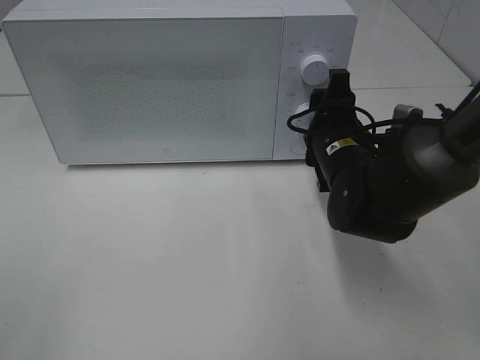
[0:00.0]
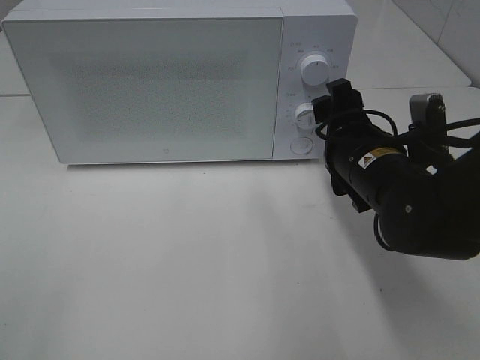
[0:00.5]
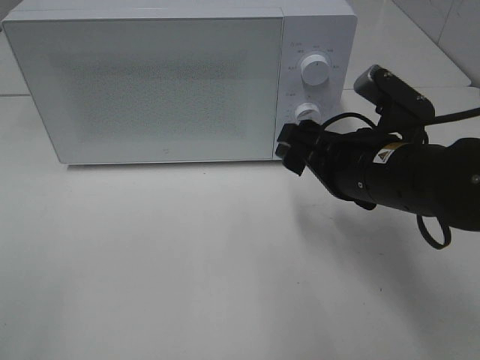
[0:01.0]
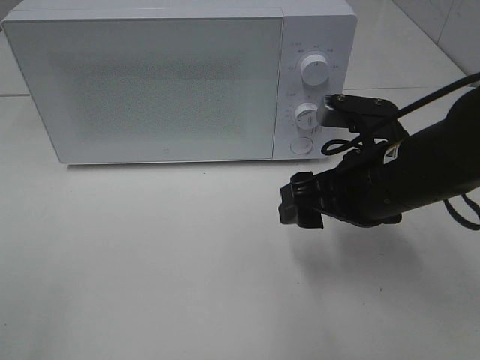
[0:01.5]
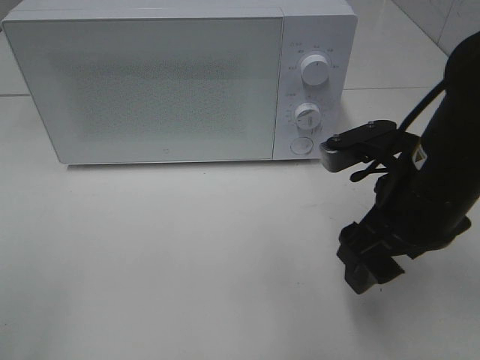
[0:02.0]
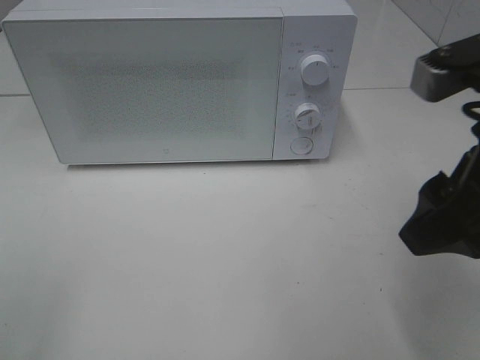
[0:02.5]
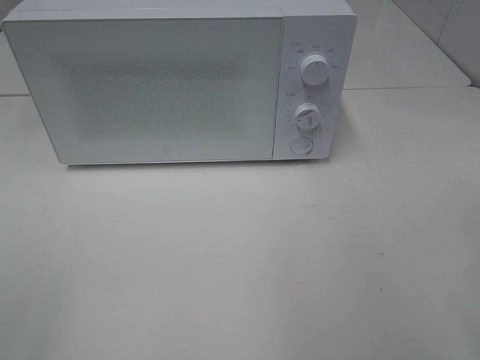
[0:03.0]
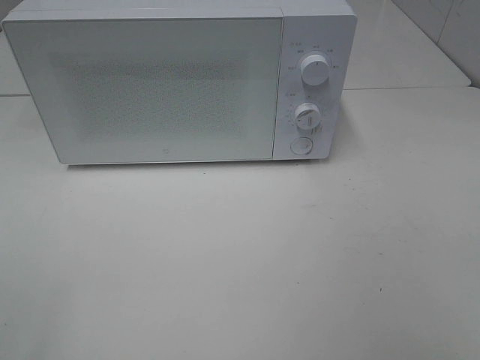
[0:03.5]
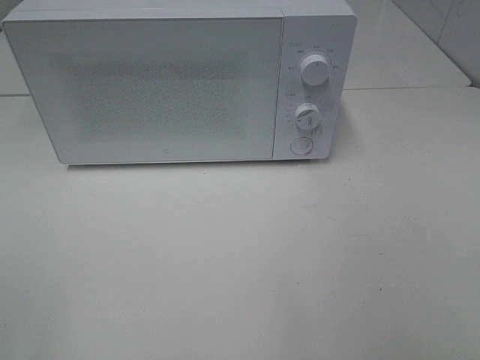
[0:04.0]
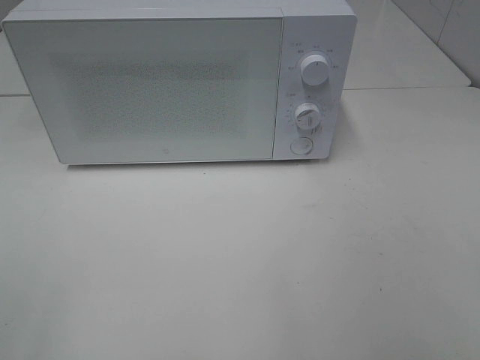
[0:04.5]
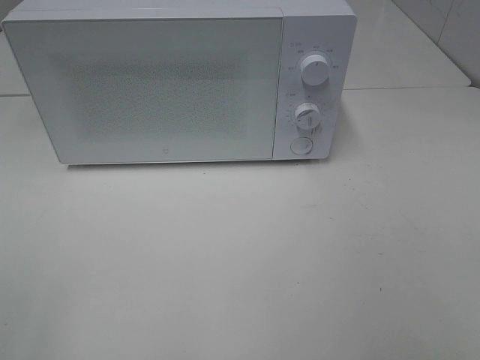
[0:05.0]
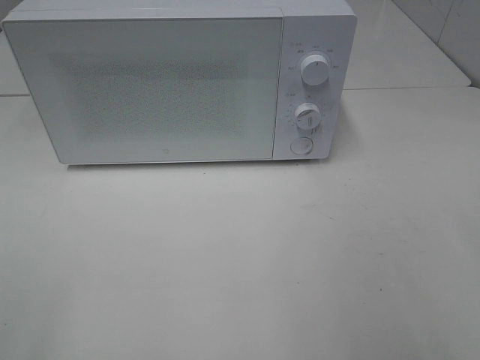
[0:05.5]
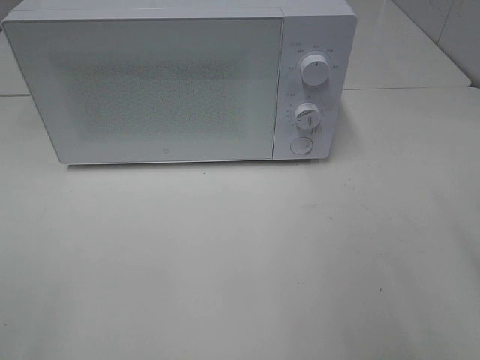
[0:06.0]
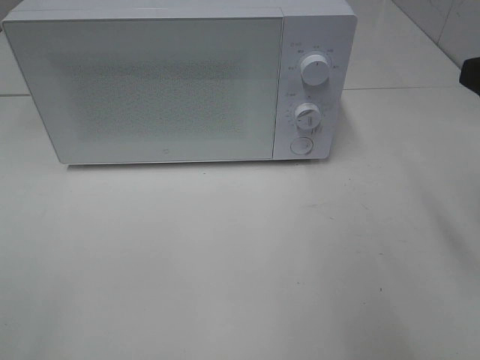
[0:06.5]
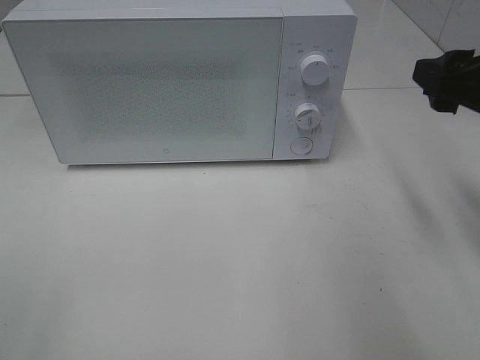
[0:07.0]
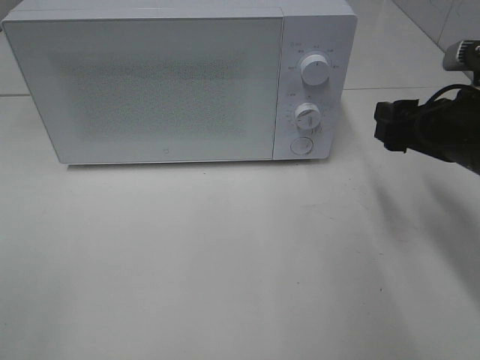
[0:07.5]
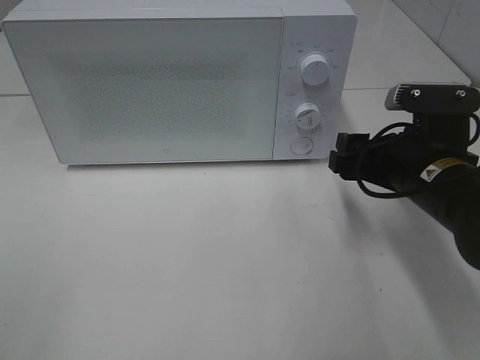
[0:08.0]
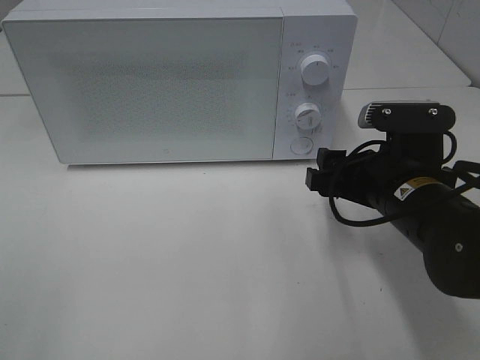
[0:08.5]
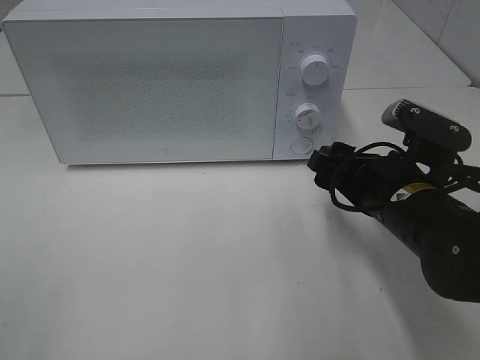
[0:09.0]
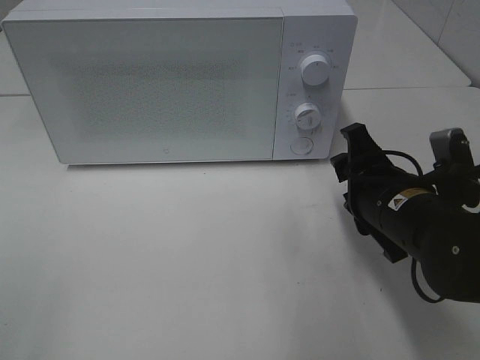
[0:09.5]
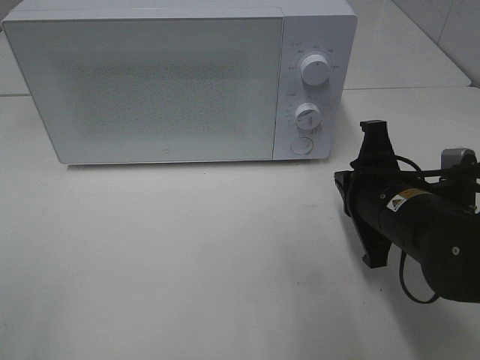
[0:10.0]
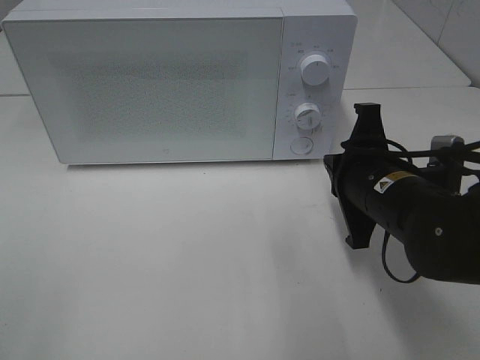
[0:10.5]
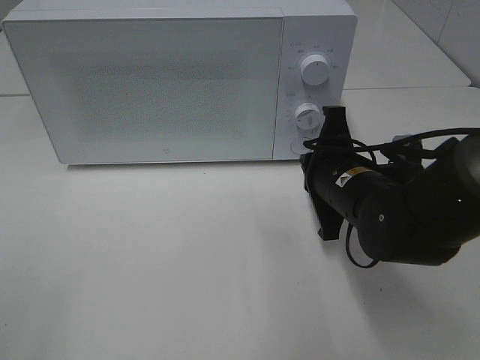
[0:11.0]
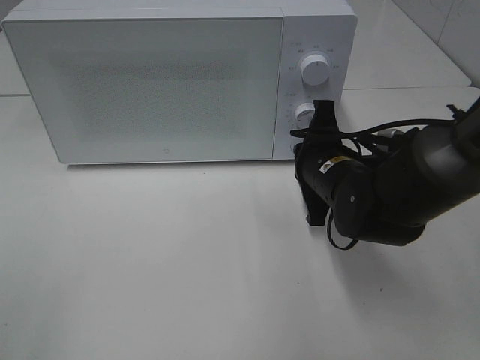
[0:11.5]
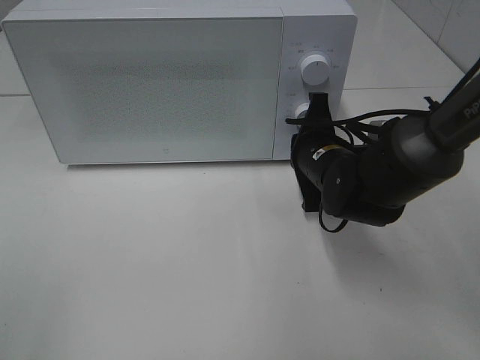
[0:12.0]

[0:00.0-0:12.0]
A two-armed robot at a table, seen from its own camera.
Task of the whole recording: Heat Sandwich.
0:00.0 to 0:02.0: The right gripper is displaced backward and upward by approximately 10 cm.
0:02.0 to 0:04.0: The right gripper shifts roughly 25 cm backward, to the right and upward.
0:06.0 to 0:08.0: The right gripper shifts roughly 20 cm downward, forward and to the left.
0:08.0 to 0:10.0: The right gripper closes up.
0:10.0 to 0:12.0: The right gripper travels forward by about 10 cm.

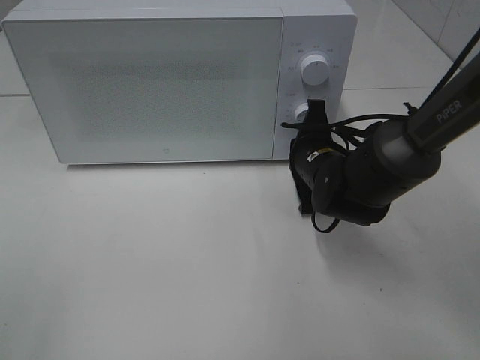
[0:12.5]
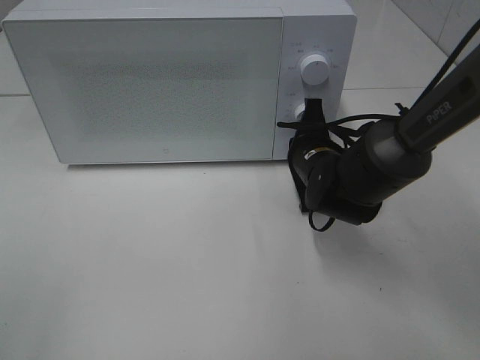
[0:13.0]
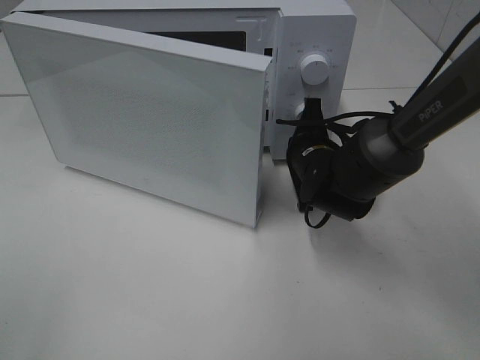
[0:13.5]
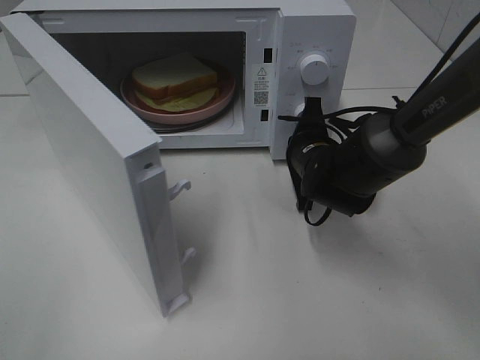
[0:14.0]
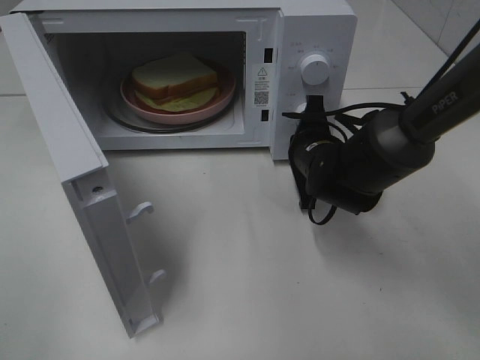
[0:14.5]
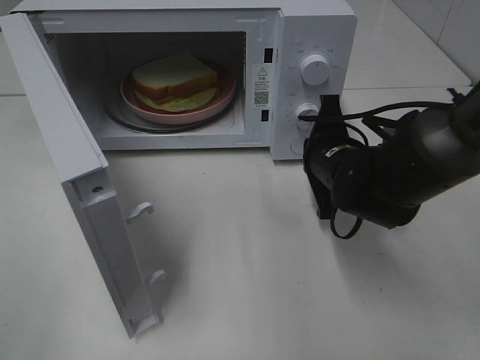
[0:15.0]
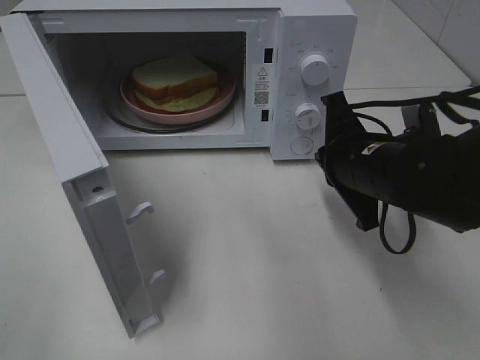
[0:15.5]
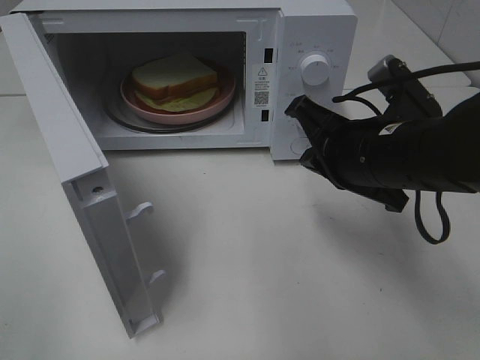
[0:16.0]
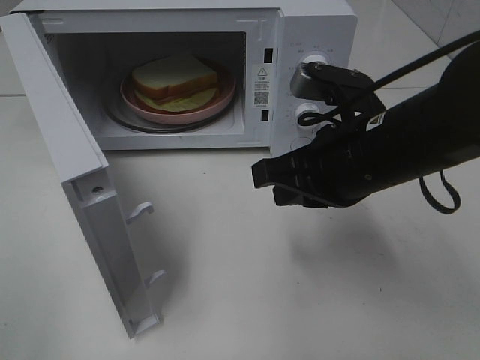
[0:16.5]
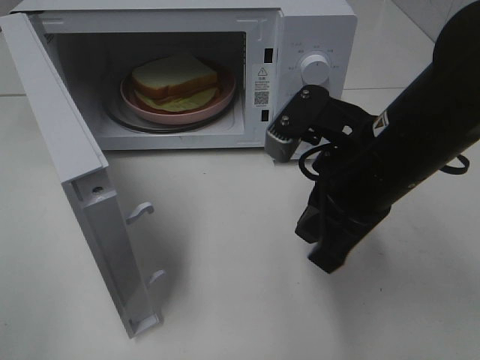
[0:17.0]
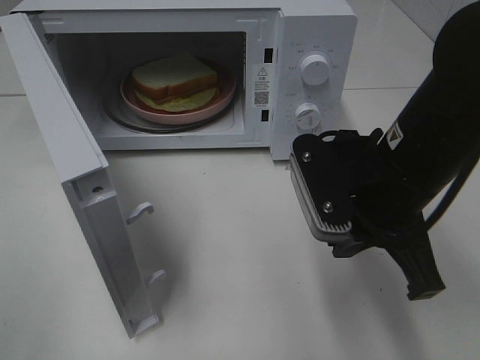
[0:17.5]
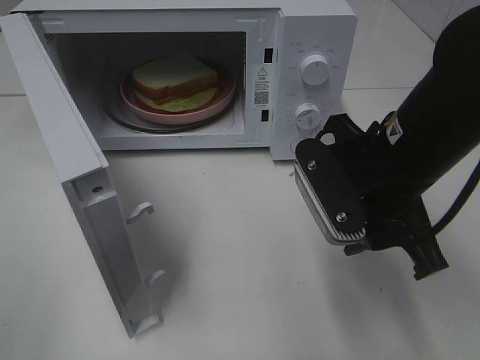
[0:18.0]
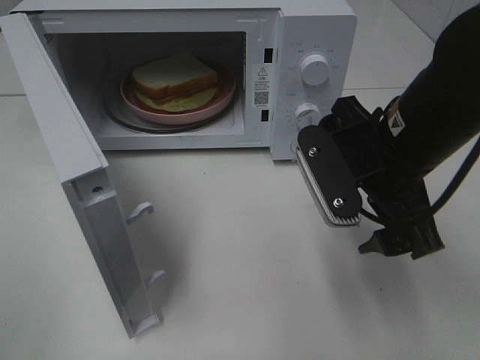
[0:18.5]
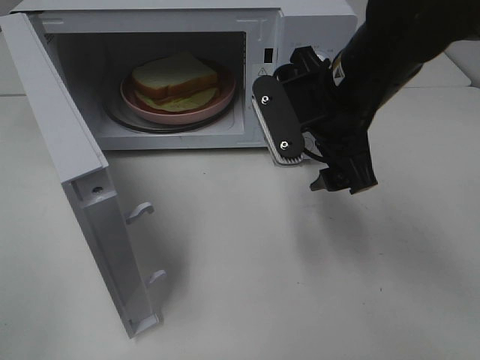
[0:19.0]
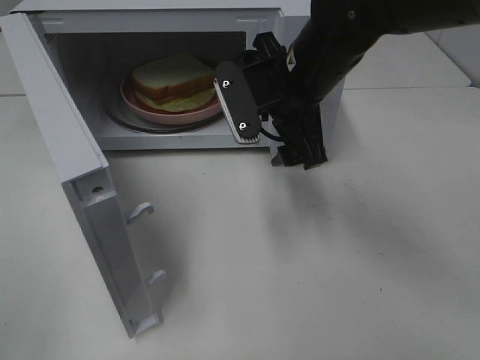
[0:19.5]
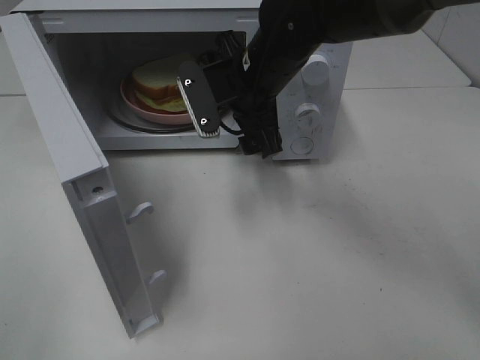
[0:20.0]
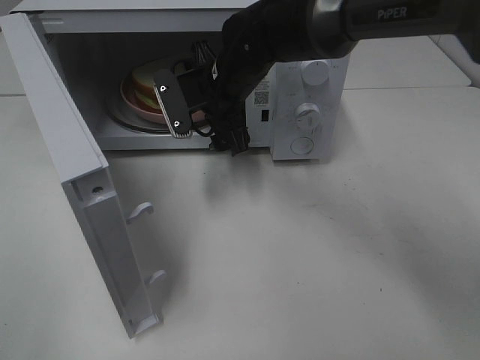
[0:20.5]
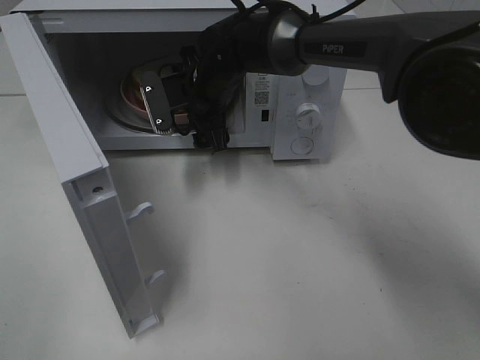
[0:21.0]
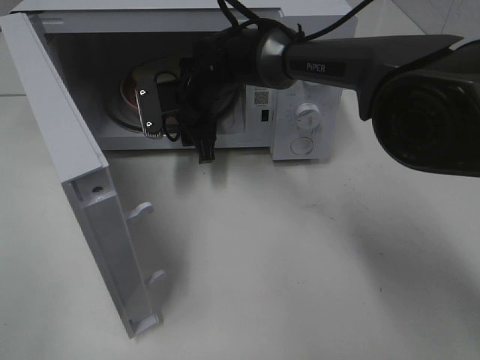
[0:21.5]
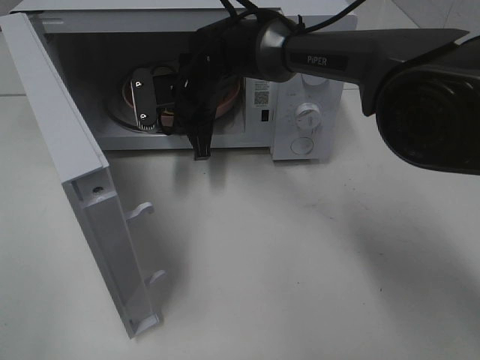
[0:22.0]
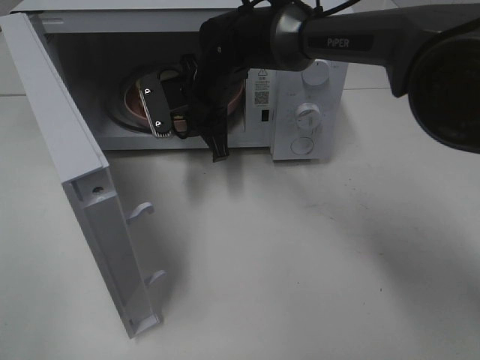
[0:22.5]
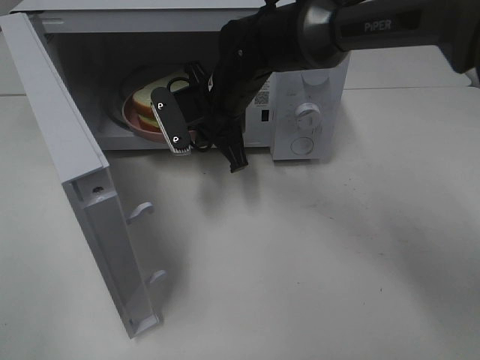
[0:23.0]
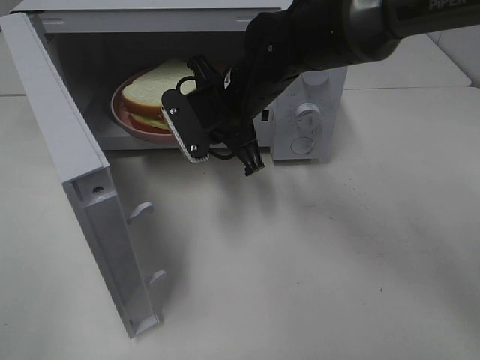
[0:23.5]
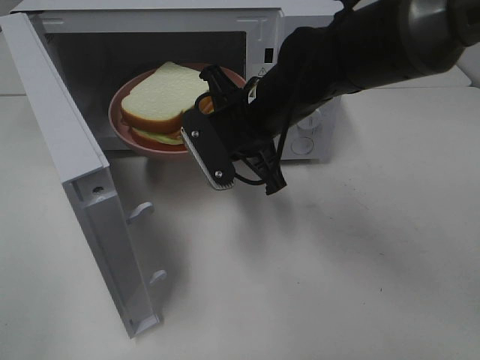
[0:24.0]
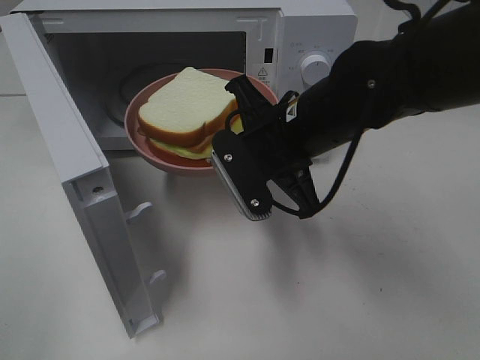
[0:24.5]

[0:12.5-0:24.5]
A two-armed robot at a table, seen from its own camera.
Task of the whole recording: Heat Sandwich.
Step, 0:12.5 to 0:15.0: Right hand: press the switch.
Step, 0:15.5 to 0:22.0: Right hand: grab the plate with the sandwich.
0:14.5 to 0:16.5: The right gripper is displaced backward and upward by roughly 15 cm.
0:16.5 to 0:18.5: The right gripper opens its fingers.
0:18.5 to 0:20.5: The right gripper travels forward and to the left by approximately 20 cm.
0:20.5 to 0:22.5: The right gripper closes.
0:22.5 to 0:24.5: The right gripper shifts approximately 15 cm backward and to the right.

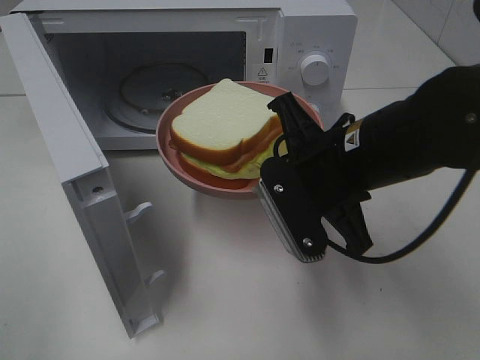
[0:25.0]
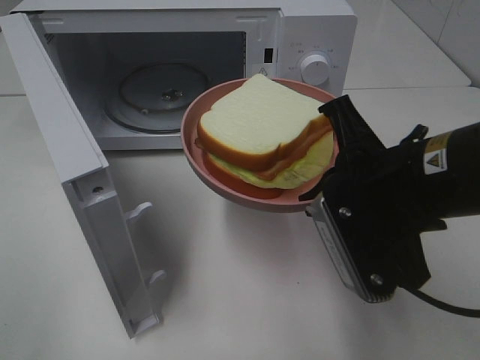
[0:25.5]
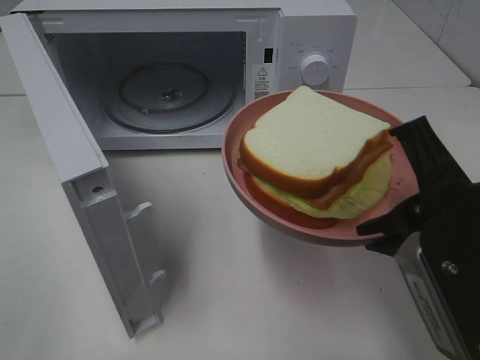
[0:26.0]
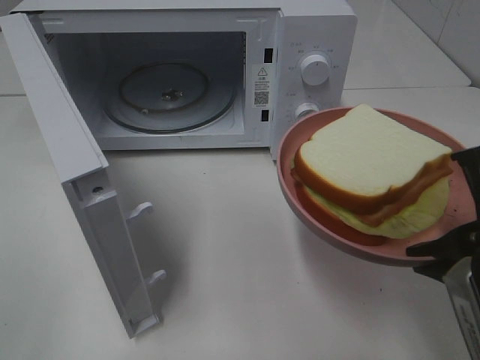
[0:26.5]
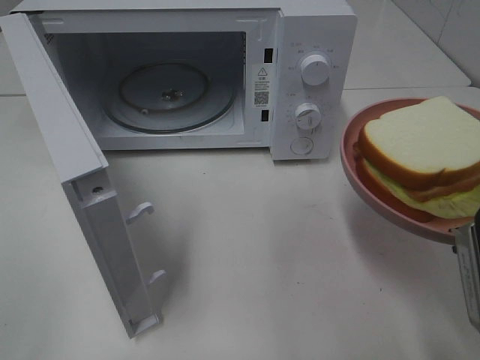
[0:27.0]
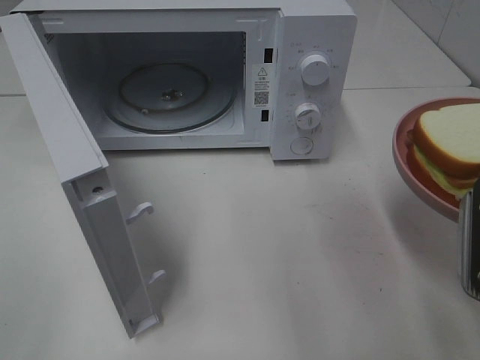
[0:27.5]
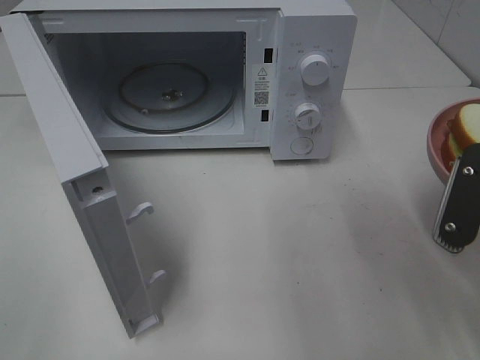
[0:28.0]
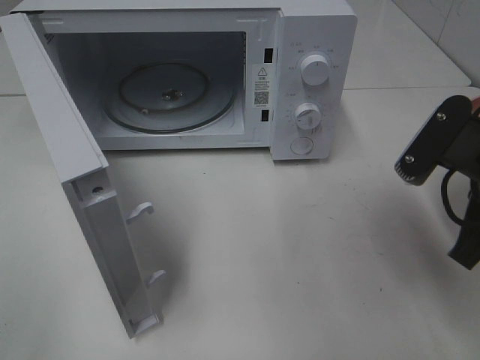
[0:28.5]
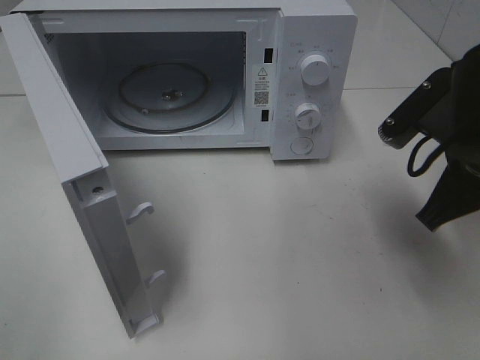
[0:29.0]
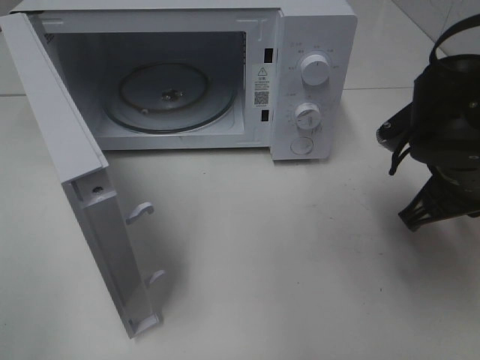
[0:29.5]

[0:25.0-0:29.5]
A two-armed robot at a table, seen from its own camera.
Task of the whole recording: Heat Sandwich.
0:25.0 to 0:27.0: The right gripper heads to the right and backward, covering some 15 cm.
0:27.0 to 0:29.5: The right gripper heads forward, covering some 10 cm.
